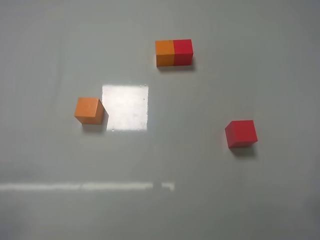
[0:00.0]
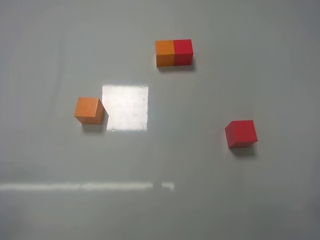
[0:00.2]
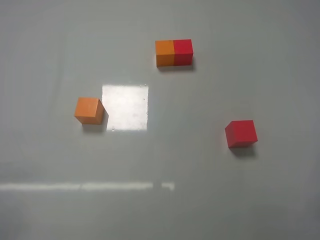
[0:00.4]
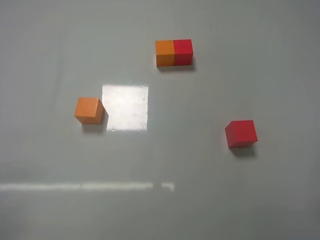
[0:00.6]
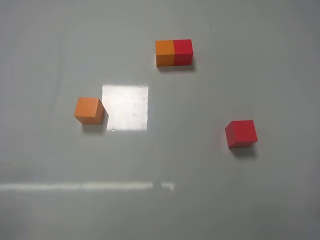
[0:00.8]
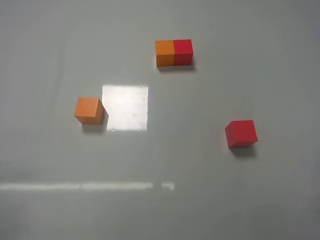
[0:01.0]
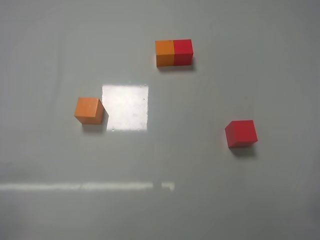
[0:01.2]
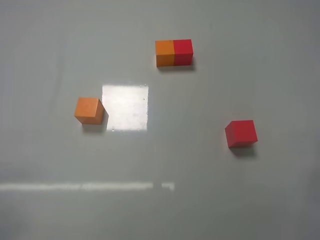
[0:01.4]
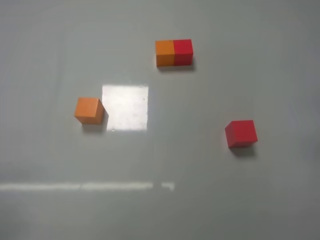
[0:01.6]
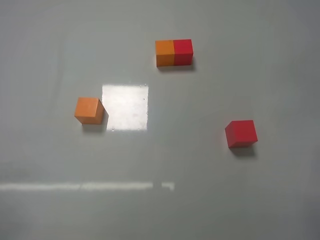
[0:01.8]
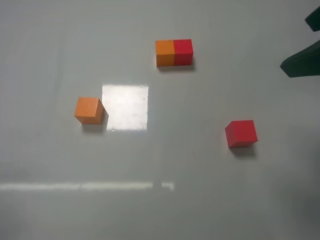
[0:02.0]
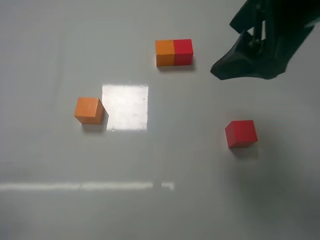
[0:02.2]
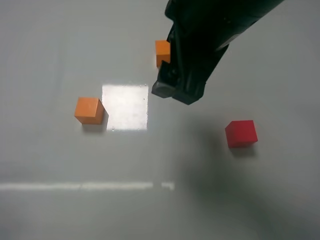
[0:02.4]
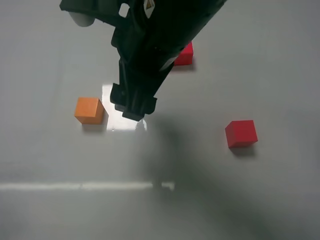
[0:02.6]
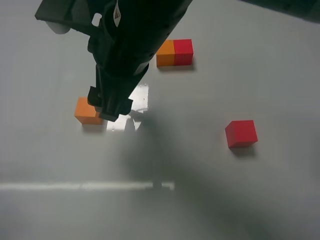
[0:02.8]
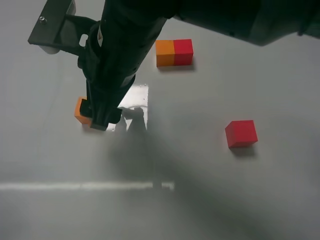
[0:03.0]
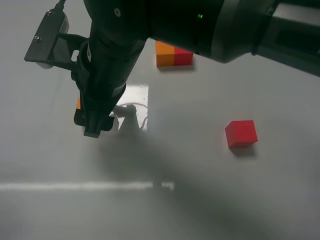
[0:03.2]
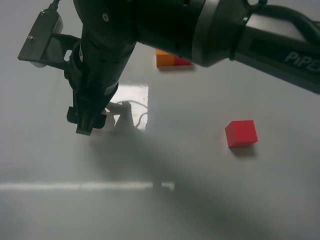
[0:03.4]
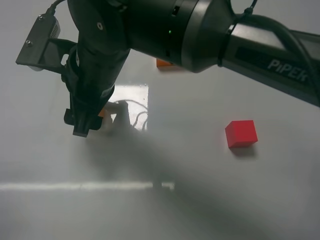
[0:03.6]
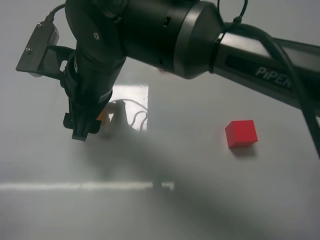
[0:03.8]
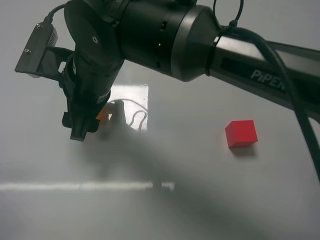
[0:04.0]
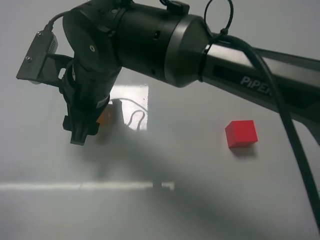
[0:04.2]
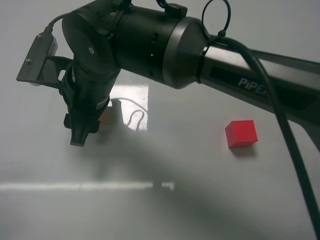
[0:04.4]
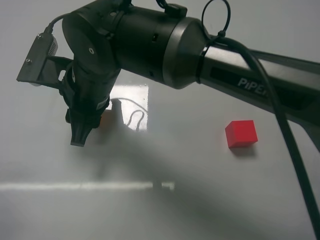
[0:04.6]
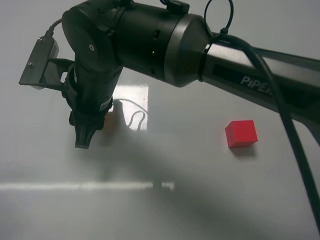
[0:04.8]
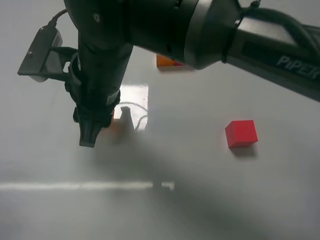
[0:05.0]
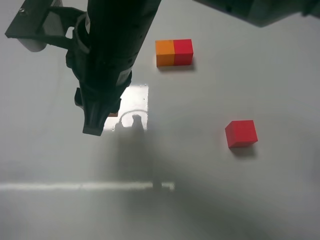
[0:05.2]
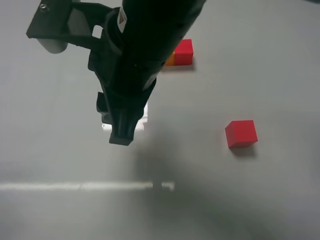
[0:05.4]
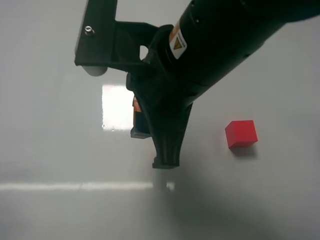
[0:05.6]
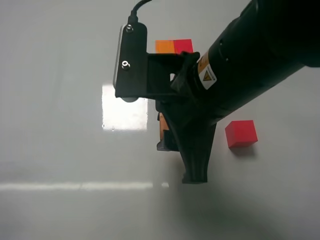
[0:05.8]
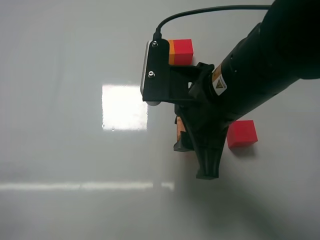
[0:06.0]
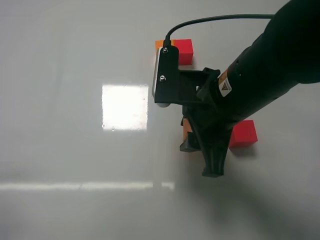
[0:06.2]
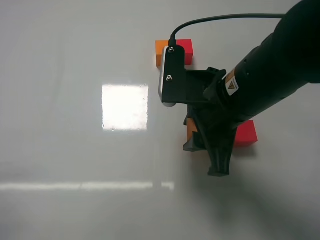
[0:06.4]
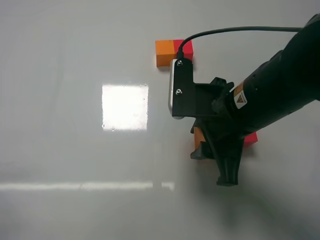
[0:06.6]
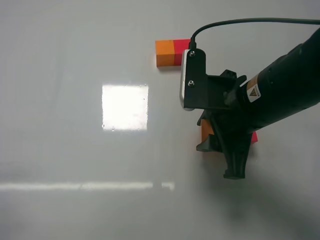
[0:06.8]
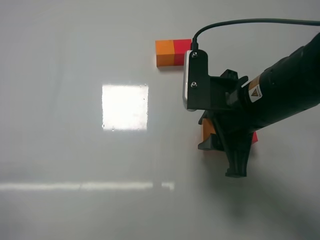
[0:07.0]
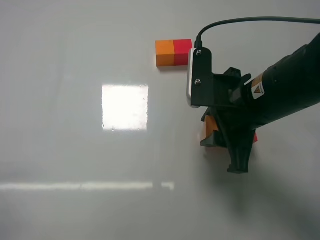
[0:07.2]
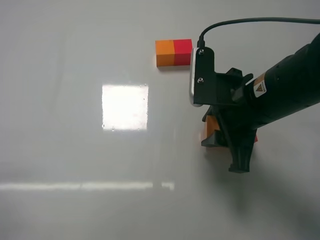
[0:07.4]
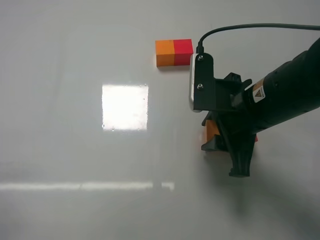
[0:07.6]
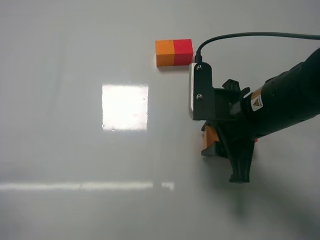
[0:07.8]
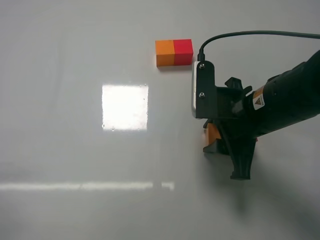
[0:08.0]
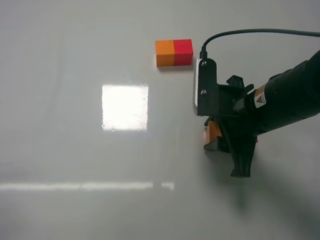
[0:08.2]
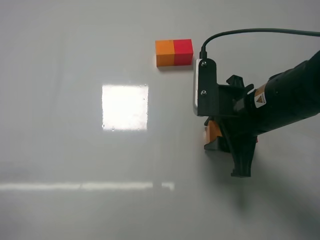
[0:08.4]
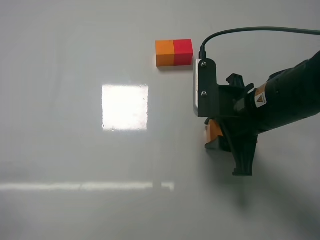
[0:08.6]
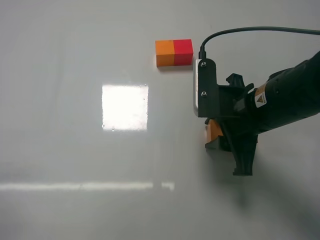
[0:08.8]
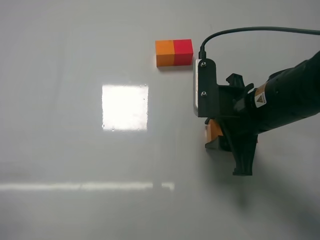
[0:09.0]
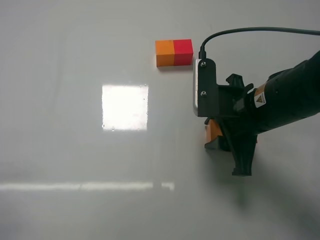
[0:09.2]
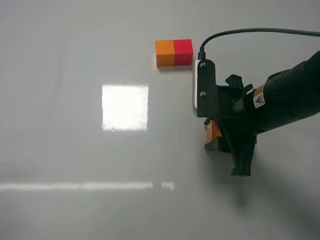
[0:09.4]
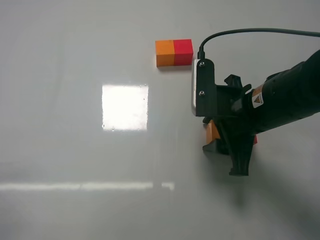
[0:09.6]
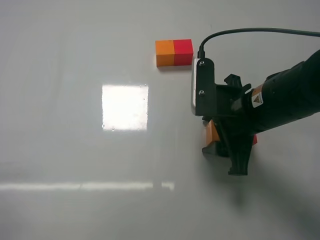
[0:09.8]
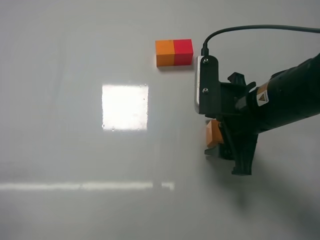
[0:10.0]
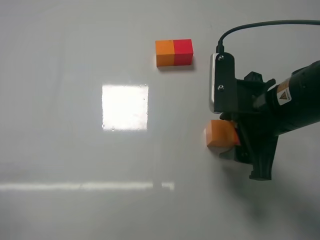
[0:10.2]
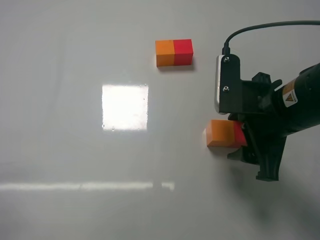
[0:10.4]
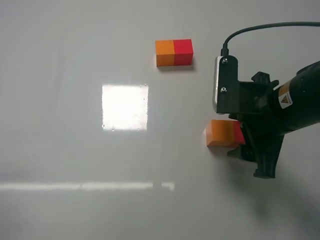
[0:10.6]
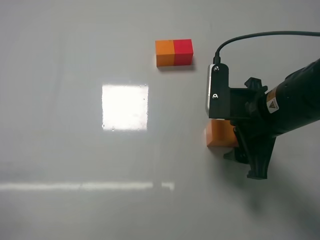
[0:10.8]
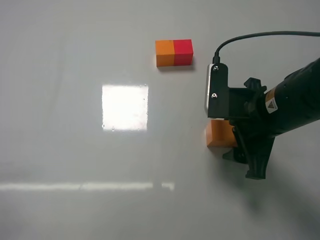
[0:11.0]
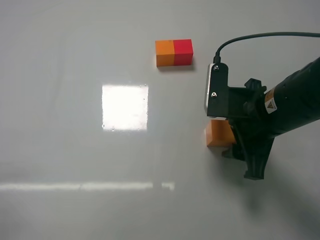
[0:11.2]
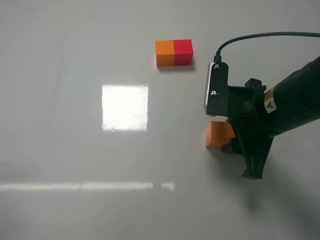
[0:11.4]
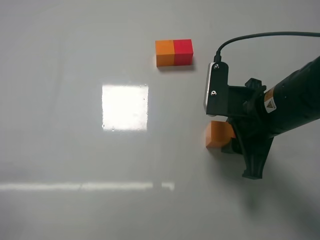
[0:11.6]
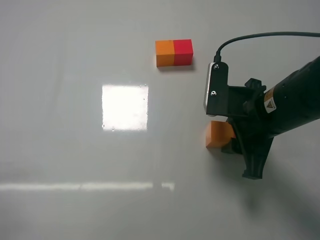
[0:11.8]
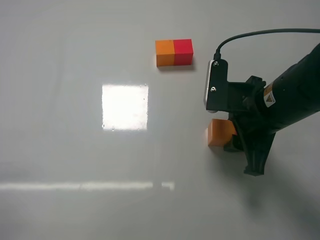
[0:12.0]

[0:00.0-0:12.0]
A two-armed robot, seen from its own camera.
Task of the whole recording: According to the building block template in front, assemble the scattered blocks together.
Step, 0:00.0 to 0:04.4: Grasp the orange block with right gripper.
Step, 0:04.6 to 0:10.0: Put the orange cube on the left of the red cube with the right gripper.
0:01.6 to 0:03.0: The right gripper is displaced to the left and forward by some 40 cm.
0:03.0 to 0:04.4: The right gripper changes place by roughly 5 cm, and closes its fingers.
0:04.4 to 0:06.0: The right gripper moves to the right, some 20 cm.
0:06.0 to 0:07.6: The right gripper heads to the right, covering about 5 cm.
0:07.6 to 0:09.0: Both grippers stay about where they are.
0:09.0 to 0:10.4: The right gripper opens up.
0:10.4 to 0:12.0: The right gripper closes.

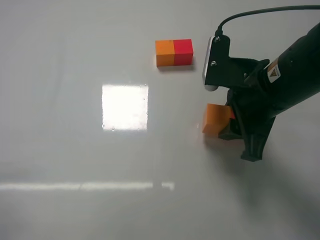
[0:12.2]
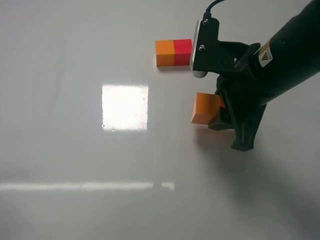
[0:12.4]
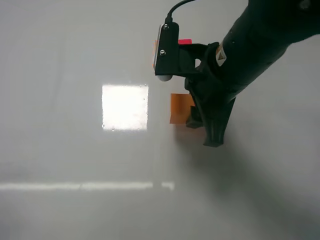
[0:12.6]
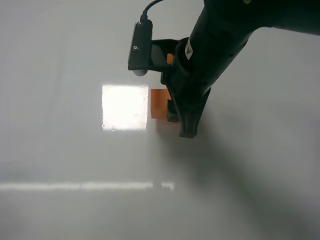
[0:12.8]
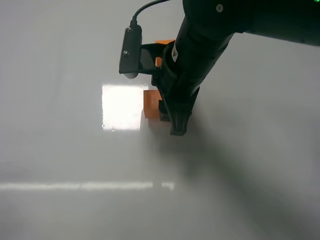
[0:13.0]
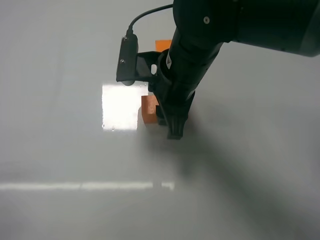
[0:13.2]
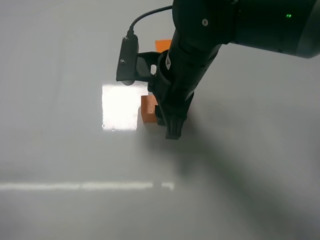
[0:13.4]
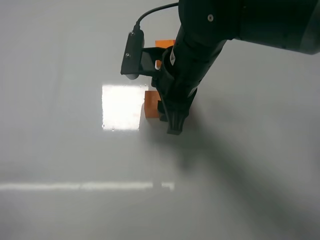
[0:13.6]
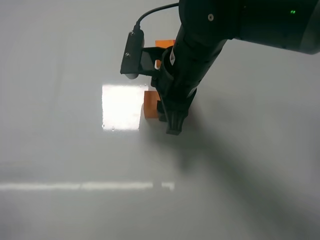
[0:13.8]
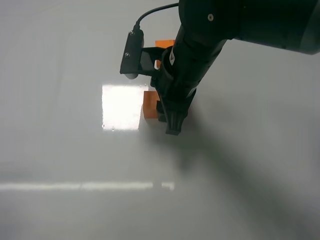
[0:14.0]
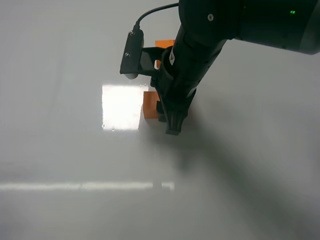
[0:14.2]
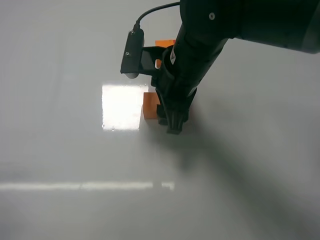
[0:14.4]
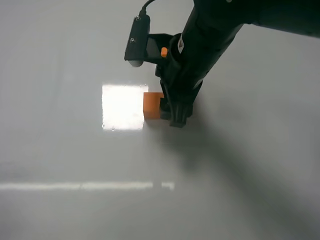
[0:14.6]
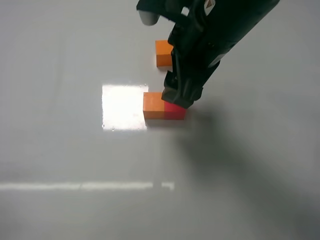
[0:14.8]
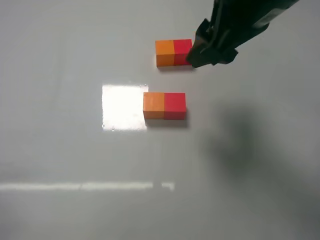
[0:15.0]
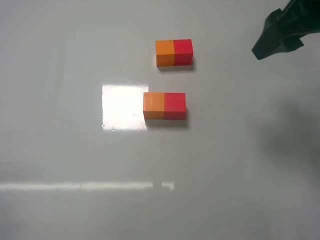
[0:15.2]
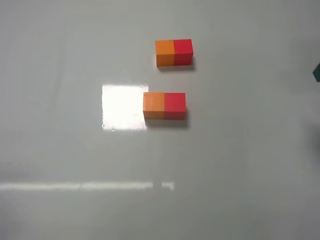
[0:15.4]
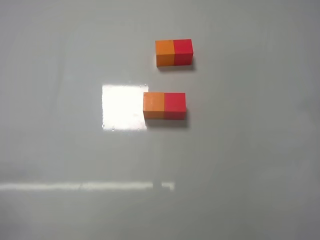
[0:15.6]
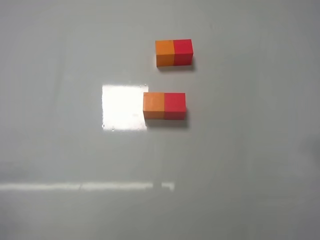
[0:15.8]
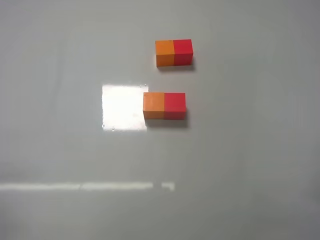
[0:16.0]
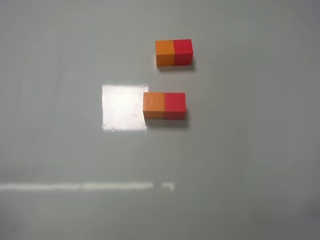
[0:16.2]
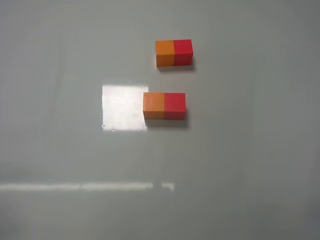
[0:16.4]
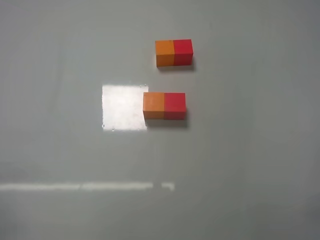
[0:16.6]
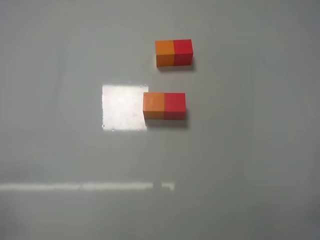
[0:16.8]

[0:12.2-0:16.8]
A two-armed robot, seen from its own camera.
Task of the whole recording: According to the building block template in front, assemble the scattered blocks together.
Step, 0:12.2 to 0:14.6: Put the red cube and orange cube in the center of the table with the right gripper.
0:12.2 to 0:13.8: The right gripper travels to the left and forward by approximately 10 cm.
0:13.8 to 0:15.2: The right gripper moves to the right and upward, about 20 cm, and opens its fingers.
0:15.2 to 0:16.8: The right gripper goes about 30 cm backward and downward.
